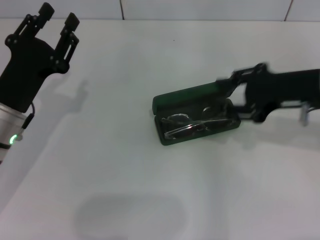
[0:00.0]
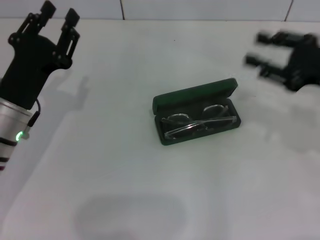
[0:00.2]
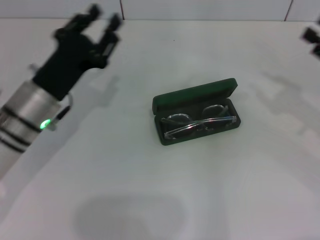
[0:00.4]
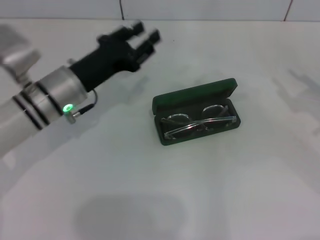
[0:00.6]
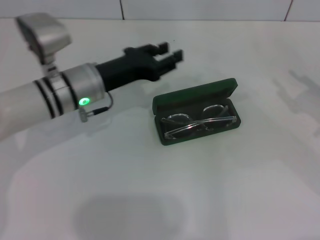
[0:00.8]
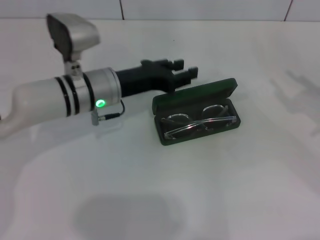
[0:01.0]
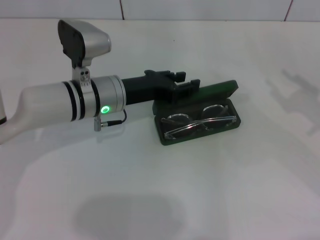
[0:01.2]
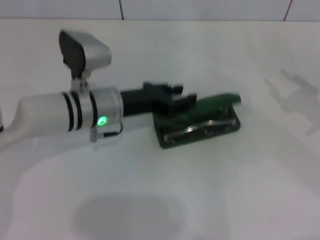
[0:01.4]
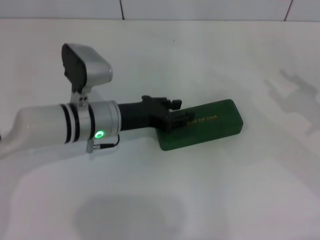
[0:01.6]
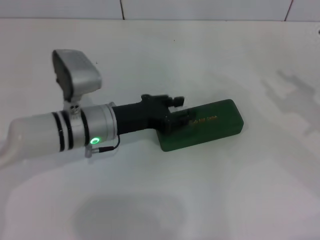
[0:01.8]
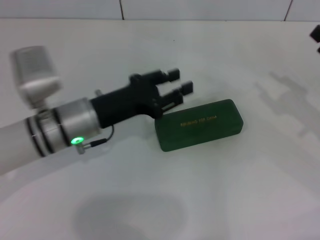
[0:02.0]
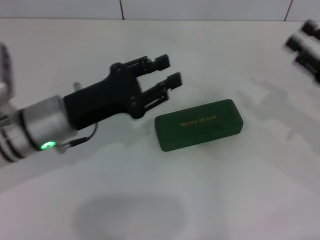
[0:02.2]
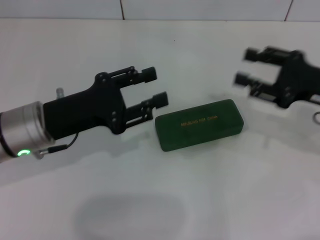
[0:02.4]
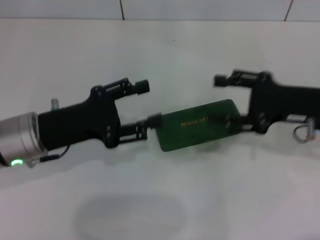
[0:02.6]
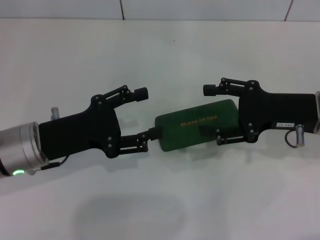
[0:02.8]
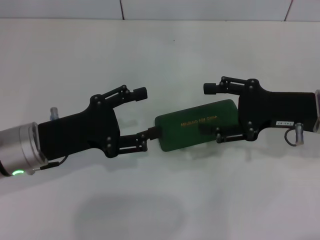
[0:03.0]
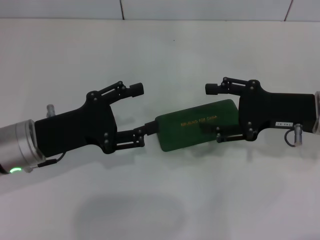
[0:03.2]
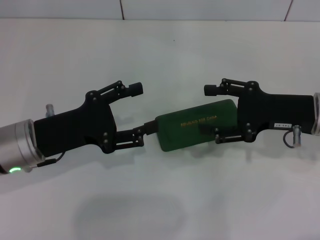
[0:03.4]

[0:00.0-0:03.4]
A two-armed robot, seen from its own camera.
Step, 0:00.0 to 0:01.6: Close the glasses case with your left hand.
0:00.0 to 0:01.6: The left gripper goes some 10 cm to the right and forward, while the right gripper heads to the right and downward, covering approximately 15 cm.
0:01.6 to 0:03.4: The left gripper goes approximately 10 cm to the left and backward, and opens up. Meanwhile the right gripper moves to the left, some 10 cm.

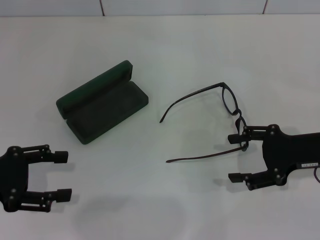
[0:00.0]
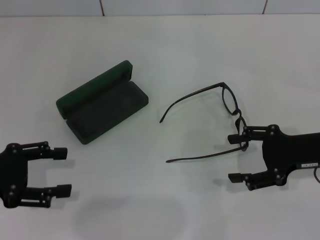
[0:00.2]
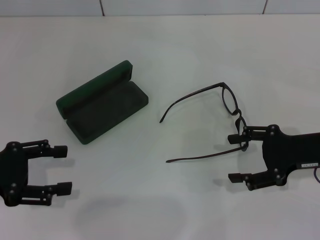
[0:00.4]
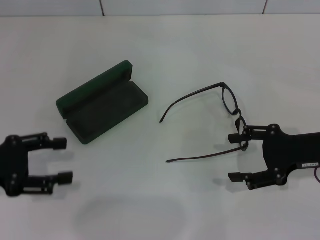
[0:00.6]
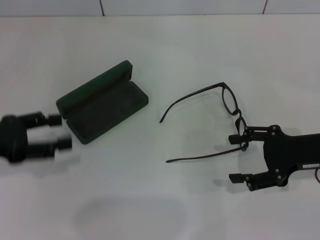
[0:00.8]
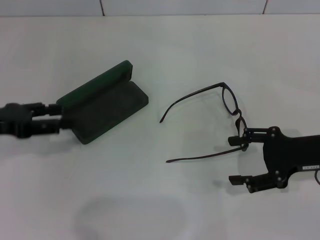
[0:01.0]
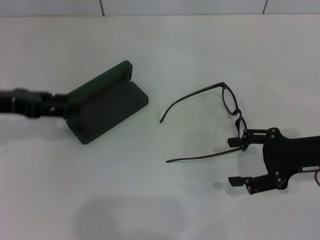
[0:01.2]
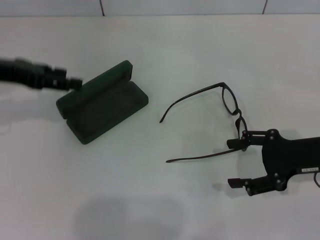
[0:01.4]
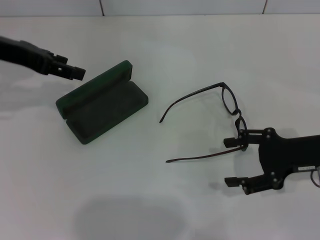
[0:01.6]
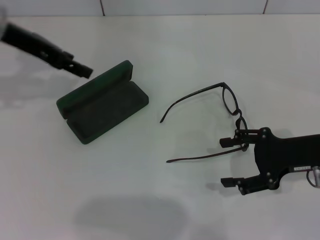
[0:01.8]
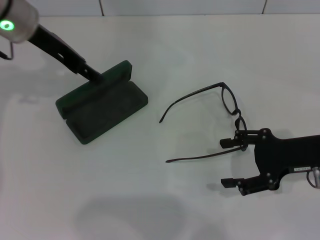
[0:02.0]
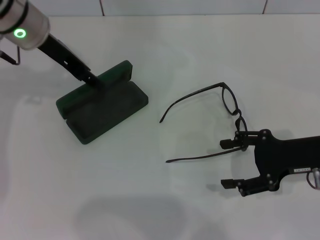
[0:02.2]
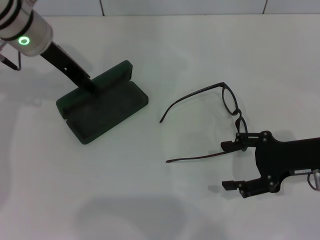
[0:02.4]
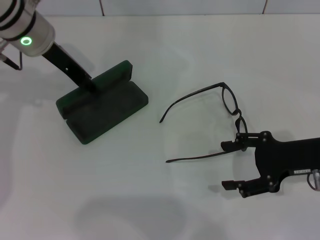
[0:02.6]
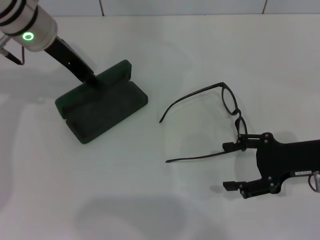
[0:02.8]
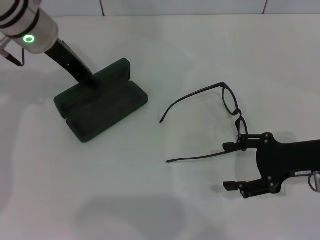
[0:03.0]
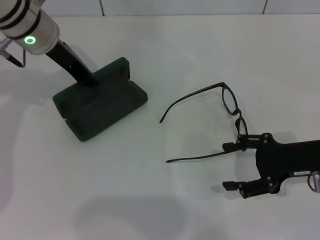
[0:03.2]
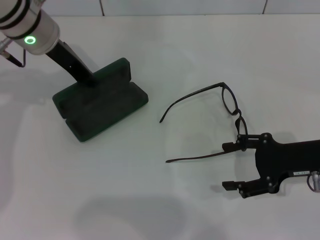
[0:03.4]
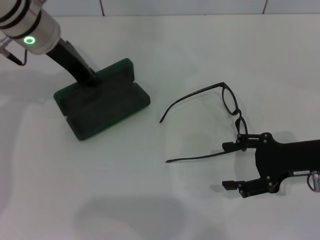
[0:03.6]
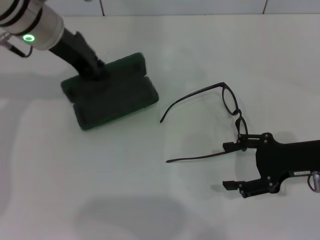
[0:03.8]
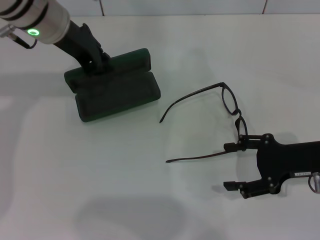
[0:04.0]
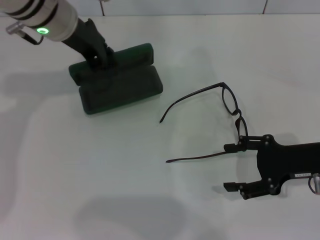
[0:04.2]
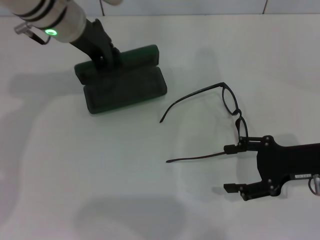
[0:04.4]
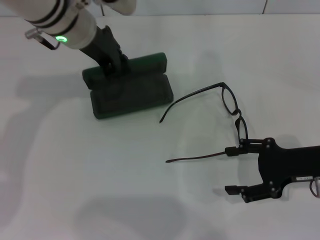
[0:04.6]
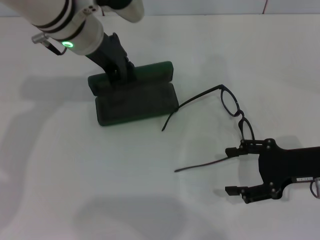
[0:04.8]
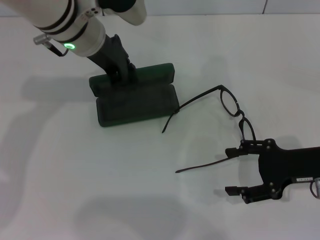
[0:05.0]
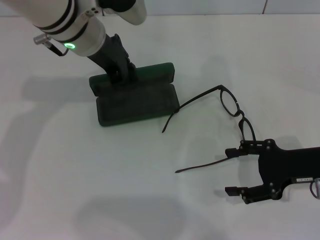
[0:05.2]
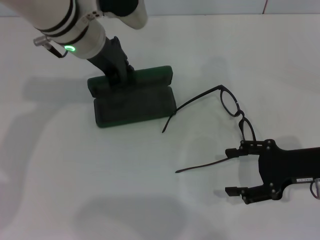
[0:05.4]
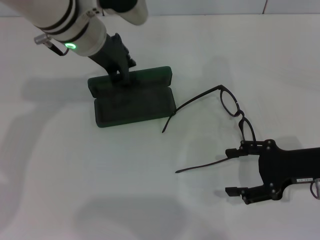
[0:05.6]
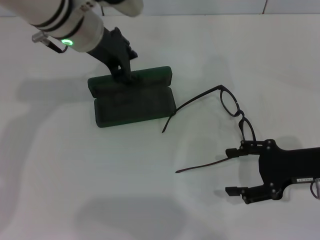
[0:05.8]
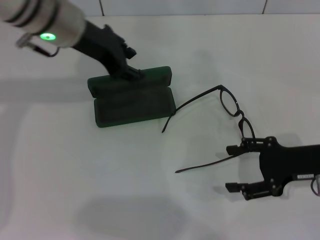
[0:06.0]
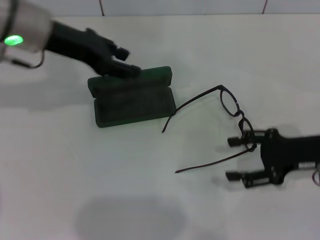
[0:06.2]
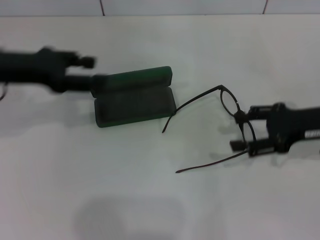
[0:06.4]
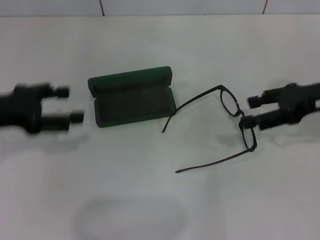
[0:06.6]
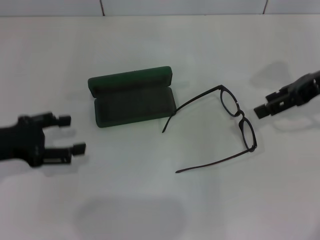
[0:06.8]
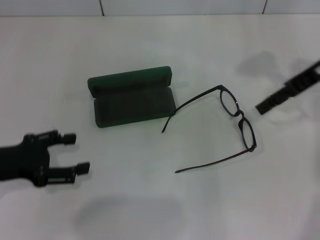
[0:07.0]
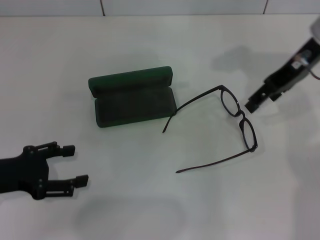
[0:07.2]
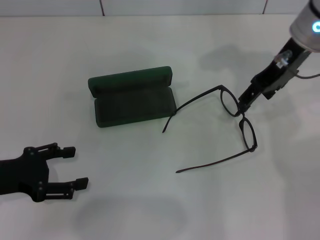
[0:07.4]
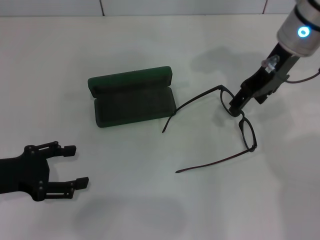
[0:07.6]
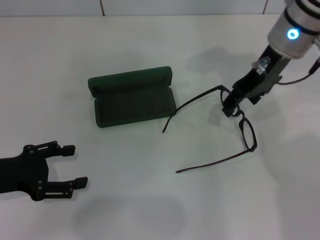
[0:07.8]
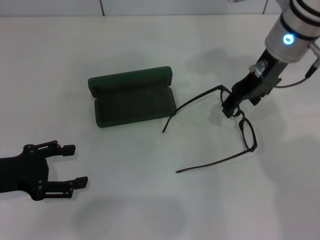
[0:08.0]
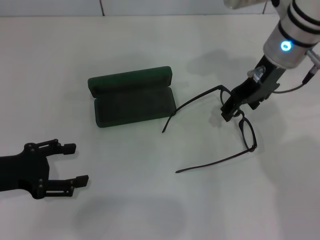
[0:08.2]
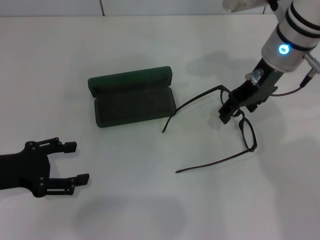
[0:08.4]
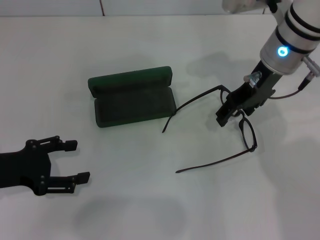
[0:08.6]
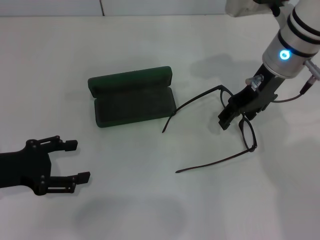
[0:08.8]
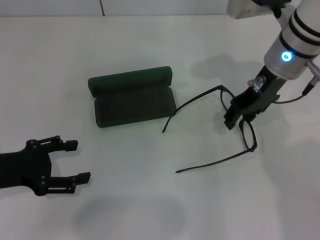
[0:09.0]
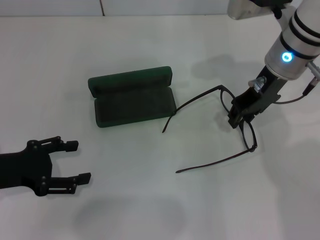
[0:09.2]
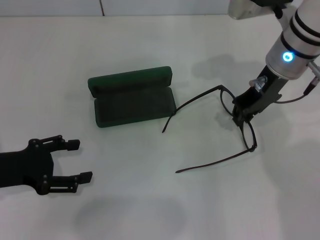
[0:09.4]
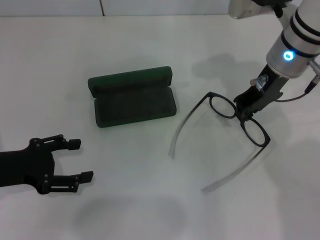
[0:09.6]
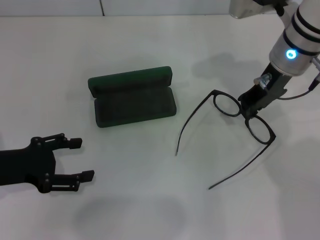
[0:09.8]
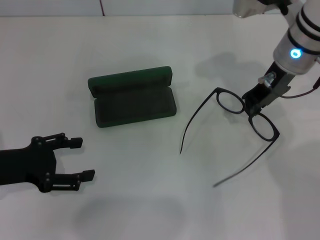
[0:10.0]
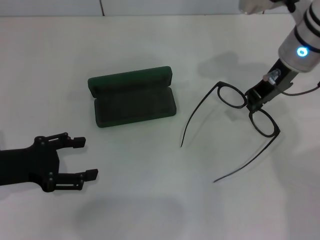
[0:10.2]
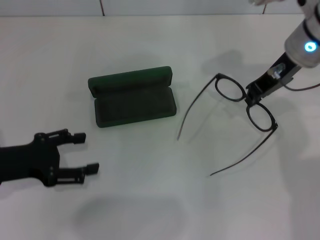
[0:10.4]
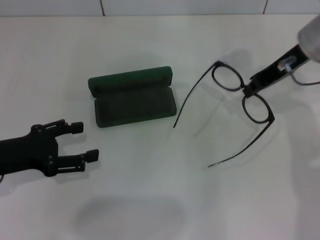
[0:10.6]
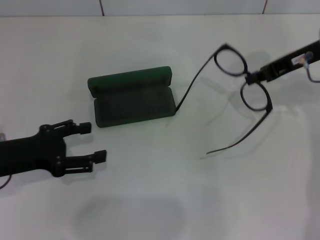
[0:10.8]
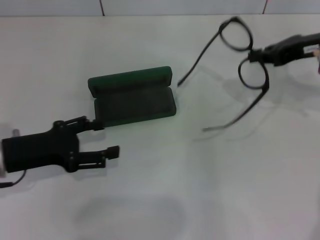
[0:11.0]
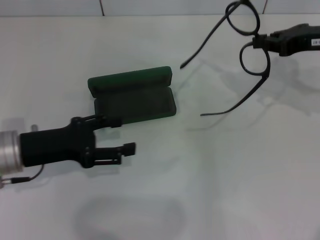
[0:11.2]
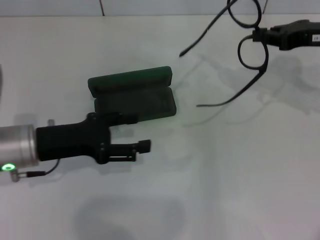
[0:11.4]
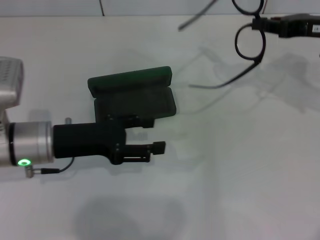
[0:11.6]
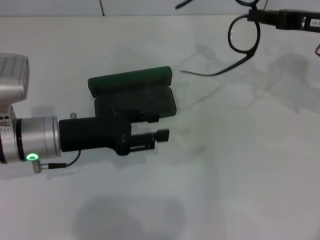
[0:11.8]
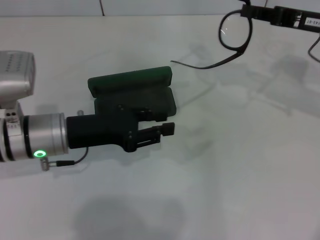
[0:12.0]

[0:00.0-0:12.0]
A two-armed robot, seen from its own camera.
Step, 0:00.0 to 0:03.2: Grab the glasses case with your left hand.
Step, 0:03.4 to 0:05.6: Place the glasses case in the center of the table with your left hand.
Step, 0:05.8 to 0:09.4: Grab the eyeglass frame with your right hand.
0:00.0 to 0:01.6: The left gripper heads forward and upward, covering about 20 cm.
0:01.6 to 0:03.0: The left gripper shifts some 10 cm to the right.
0:03.0 to 0:04.4: The left gripper closes its fingers.
0:04.4 to 0:06.0: The grippers move only a little.
0:06.0 to 0:07.6: The left gripper is displaced backward, to the left and downward by roughly 25 cm, and opens its fingers. Meanwhile the right gripper goes some 20 cm upward, forward and to the left.
0:07.6 to 0:09.0: The grippers stay close to where they were, moving slightly.
0:09.0 to 0:10.4: The right gripper closes up.
0:10.4 to 0:12.0: The right gripper heads to the right, covering some 10 cm. Meanwhile the left gripper moves to the right and forward, some 10 cm.

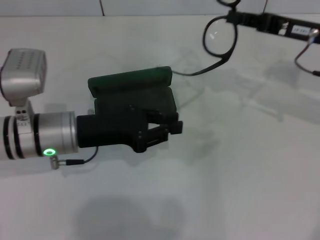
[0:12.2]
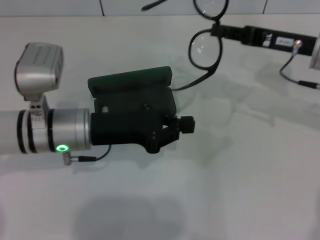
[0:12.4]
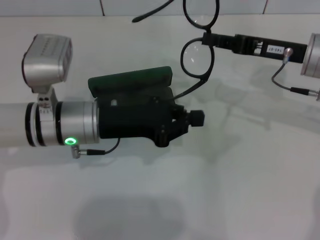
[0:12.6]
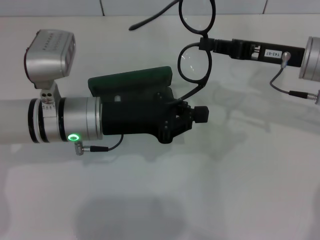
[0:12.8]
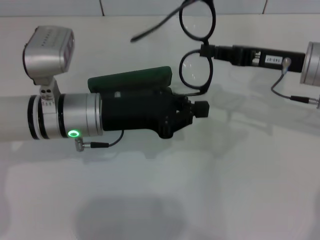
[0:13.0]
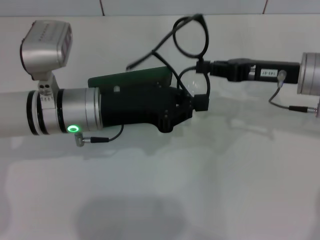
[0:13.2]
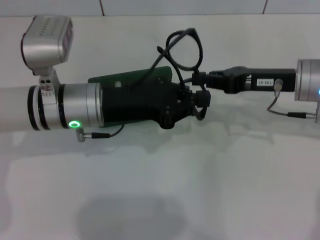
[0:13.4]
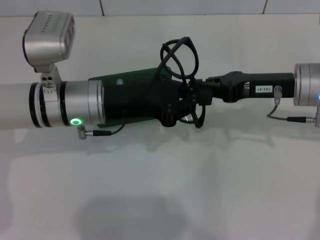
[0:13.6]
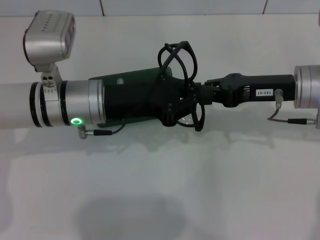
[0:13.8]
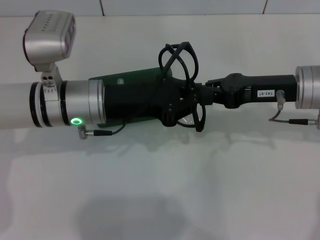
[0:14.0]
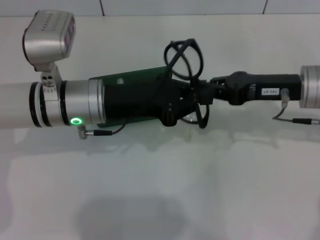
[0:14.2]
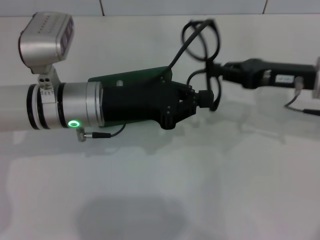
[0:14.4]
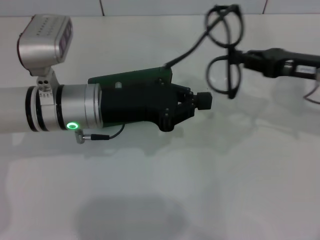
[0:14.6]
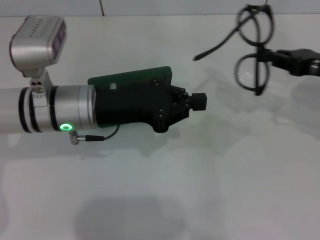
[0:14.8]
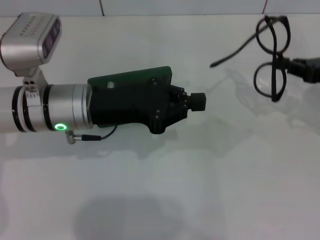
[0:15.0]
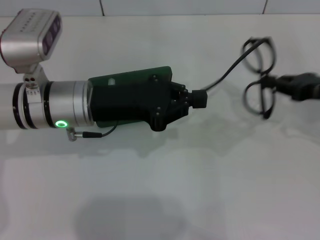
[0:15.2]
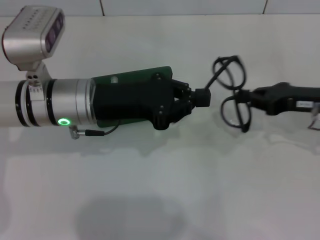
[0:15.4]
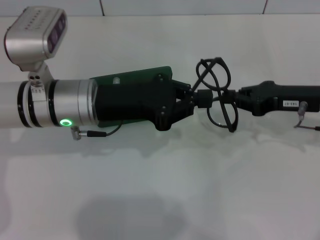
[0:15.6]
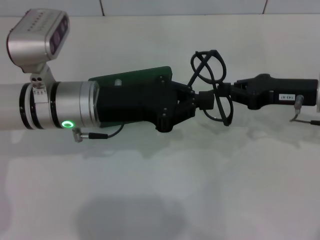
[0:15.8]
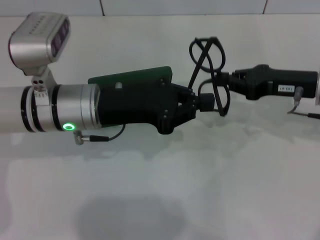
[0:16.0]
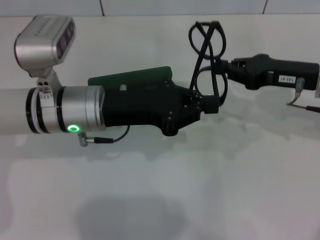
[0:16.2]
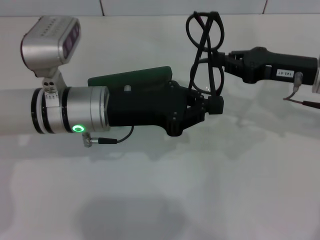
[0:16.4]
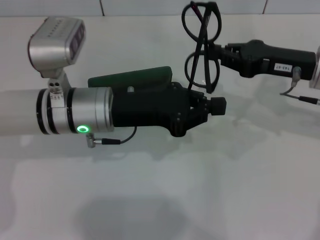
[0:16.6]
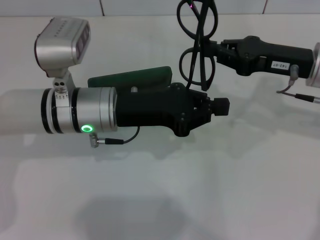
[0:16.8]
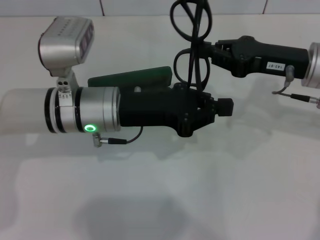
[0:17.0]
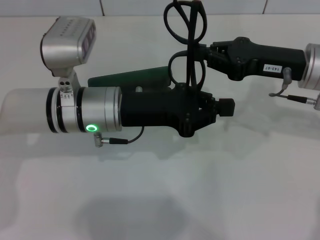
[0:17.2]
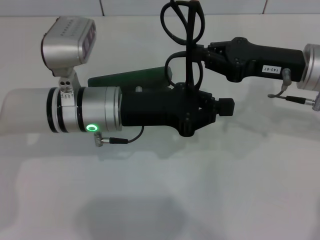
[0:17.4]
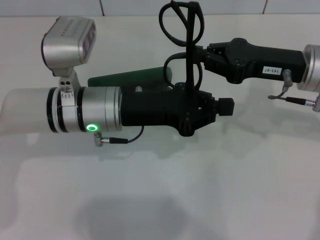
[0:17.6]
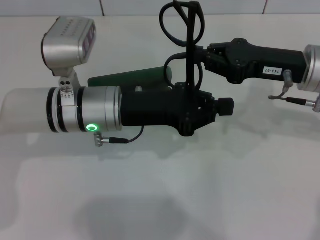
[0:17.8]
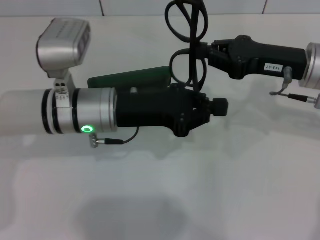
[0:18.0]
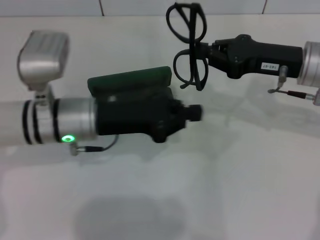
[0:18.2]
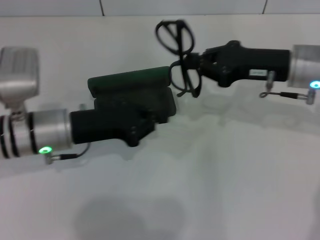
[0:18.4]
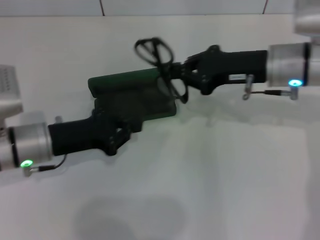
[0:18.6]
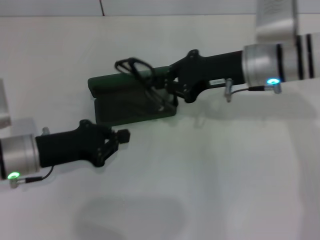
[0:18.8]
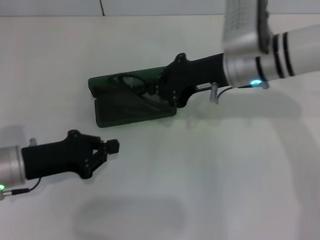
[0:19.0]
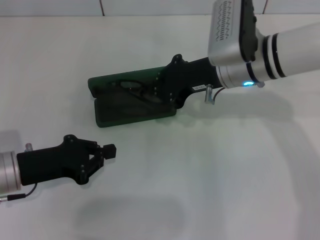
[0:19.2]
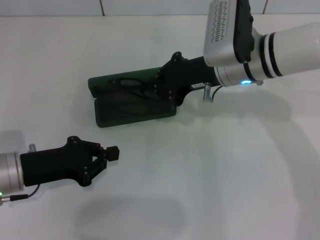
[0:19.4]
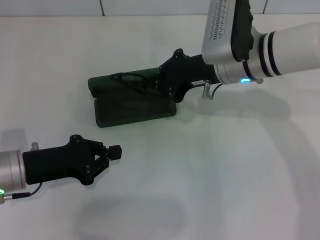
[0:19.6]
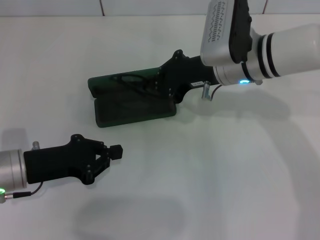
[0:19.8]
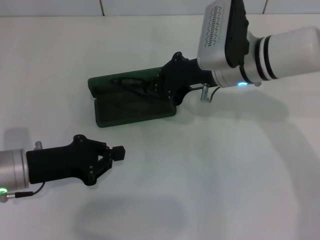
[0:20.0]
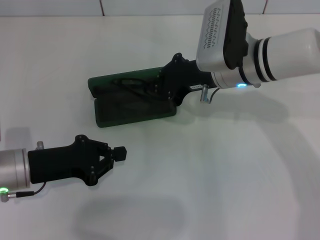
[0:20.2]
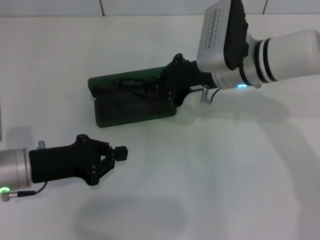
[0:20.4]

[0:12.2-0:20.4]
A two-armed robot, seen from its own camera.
Step, 0:12.2 to 0:17.8: Fold the frame with your left hand.
0:12.2 to 0:13.8: The left gripper shifts by some 5 cm, and closes up; the right gripper moves roughly 5 cm.
0:13.8 to 0:15.4: The right gripper travels to the right by some 5 cm.
0:15.4 to 0:17.2: The right gripper goes some 5 cm to the left.
0:17.2 to 0:18.8: The left gripper heads to the left and downward, covering approximately 15 cm. The right gripper goes roughly 5 cm to the left.
0:18.8 to 0:20.4: The grippers stay close to where they were, moving slightly.
